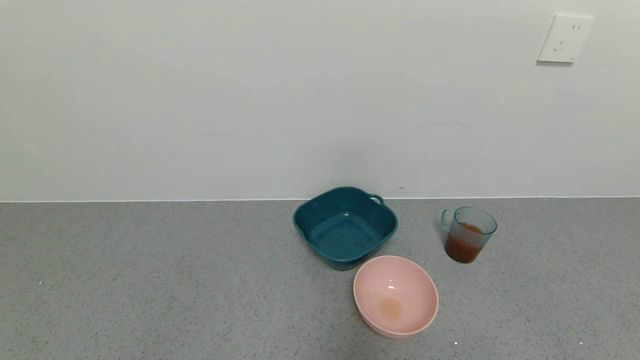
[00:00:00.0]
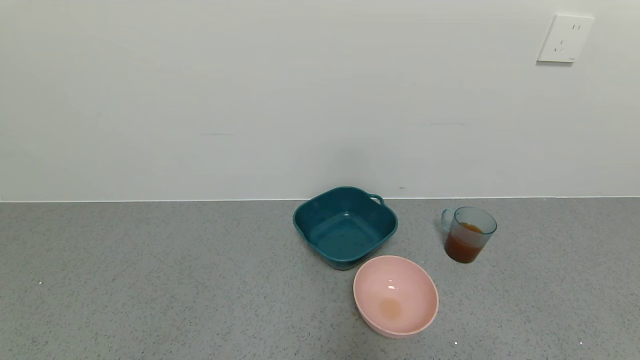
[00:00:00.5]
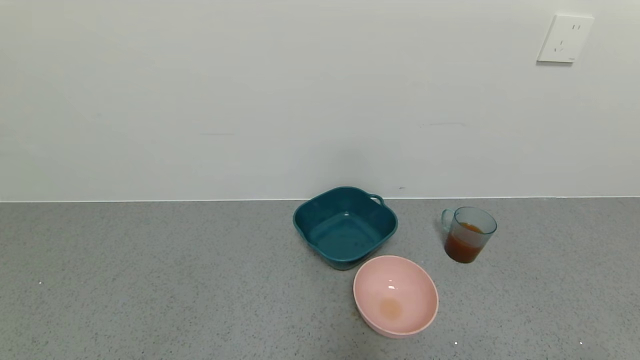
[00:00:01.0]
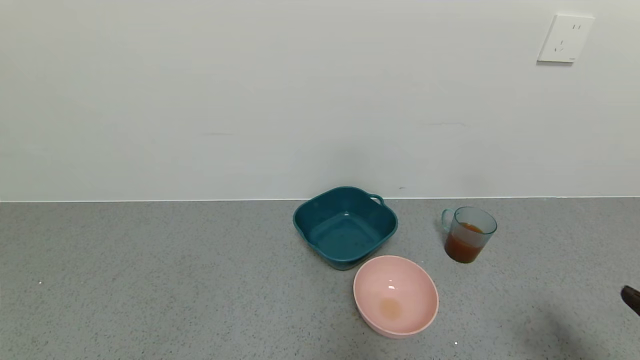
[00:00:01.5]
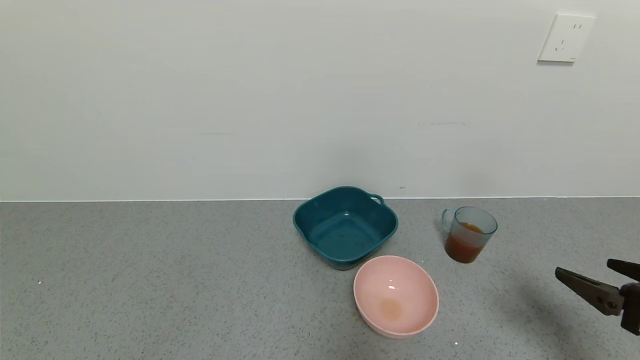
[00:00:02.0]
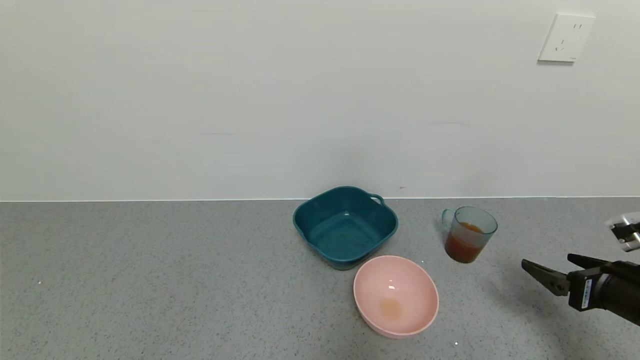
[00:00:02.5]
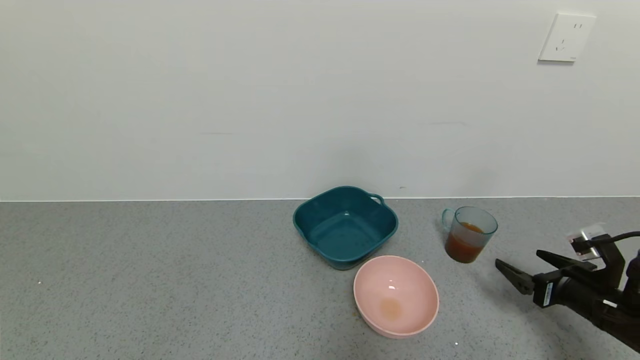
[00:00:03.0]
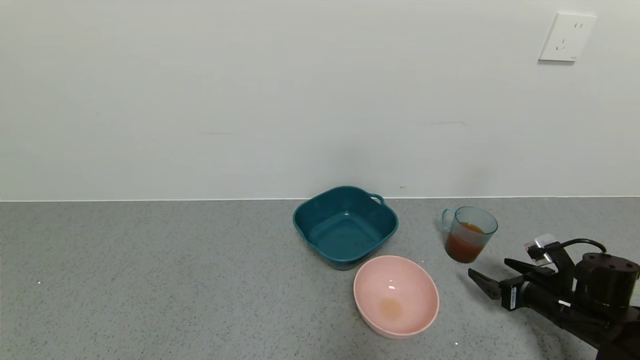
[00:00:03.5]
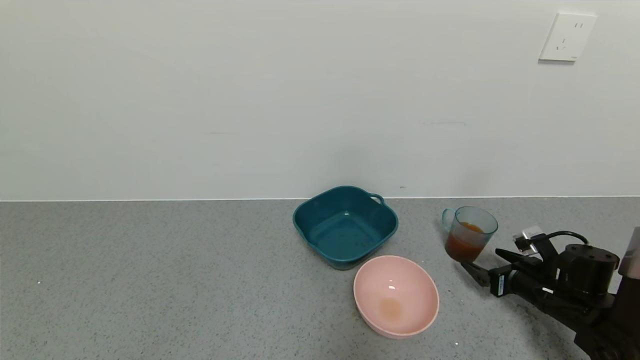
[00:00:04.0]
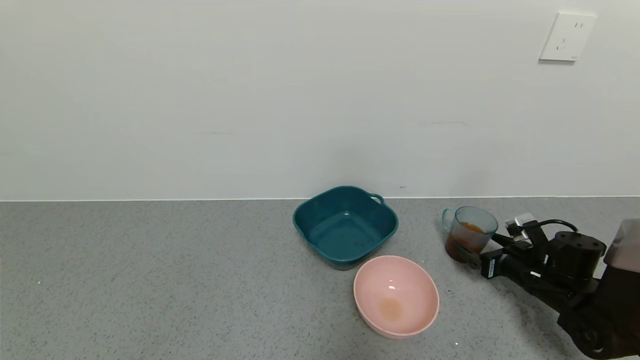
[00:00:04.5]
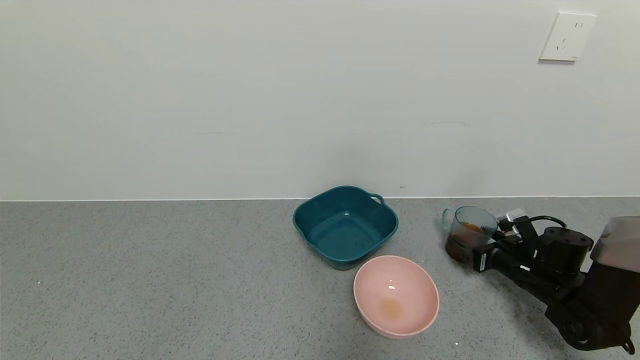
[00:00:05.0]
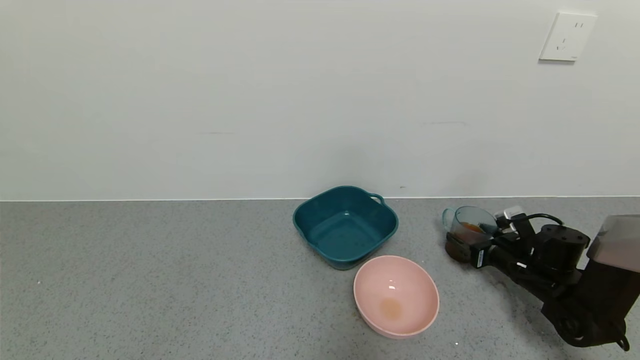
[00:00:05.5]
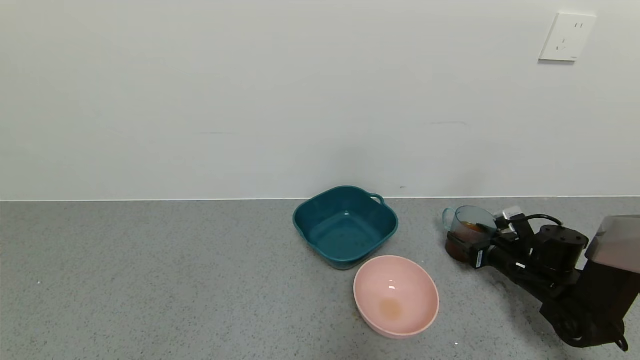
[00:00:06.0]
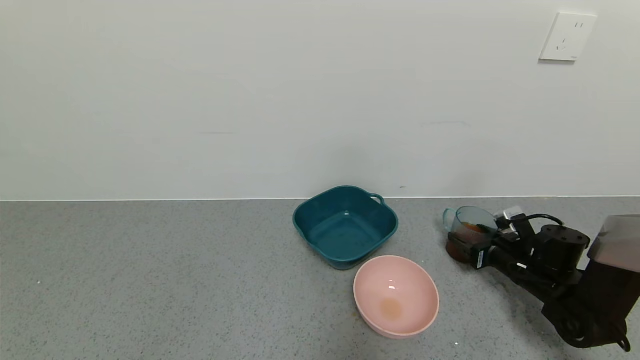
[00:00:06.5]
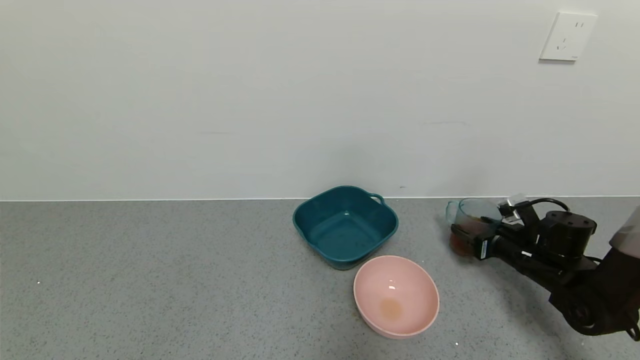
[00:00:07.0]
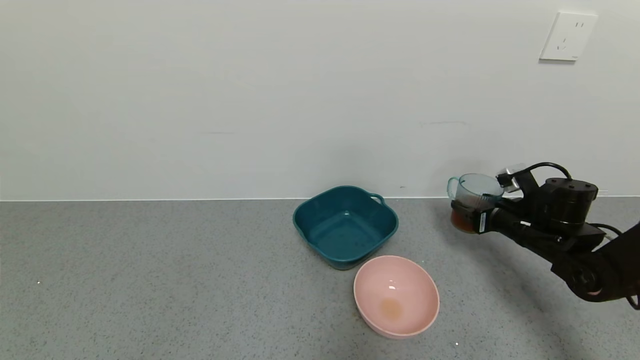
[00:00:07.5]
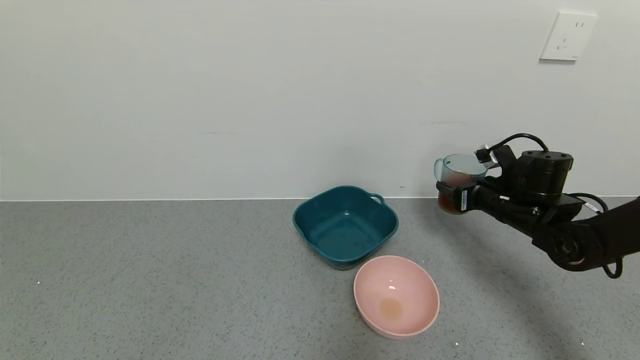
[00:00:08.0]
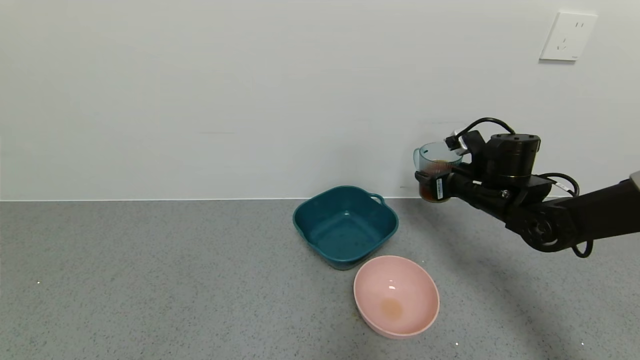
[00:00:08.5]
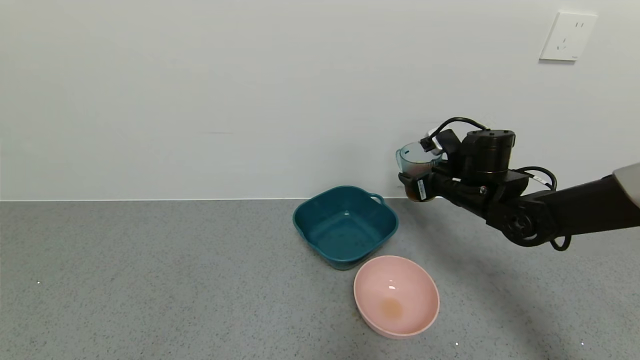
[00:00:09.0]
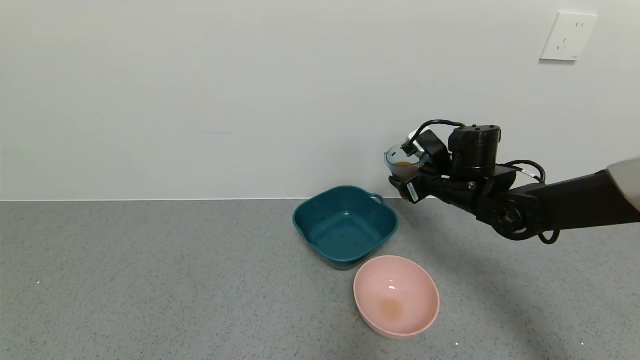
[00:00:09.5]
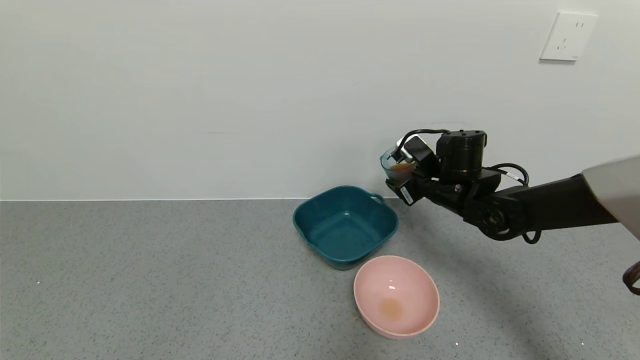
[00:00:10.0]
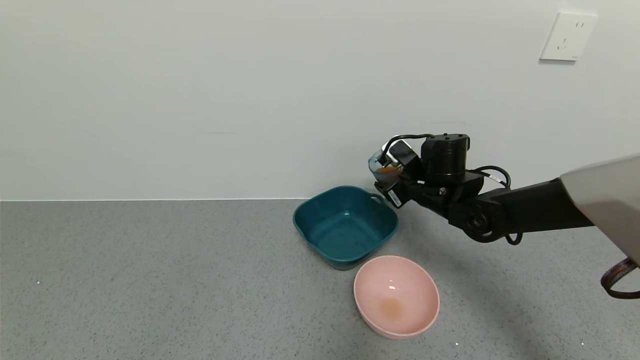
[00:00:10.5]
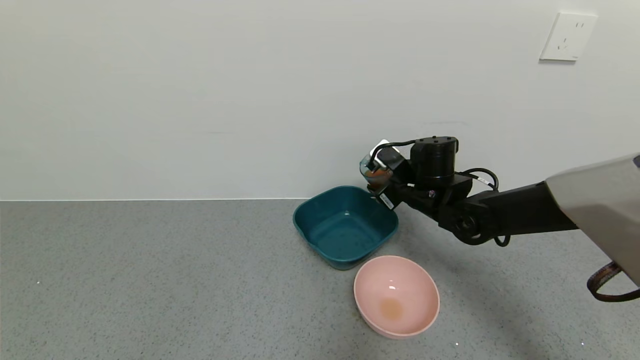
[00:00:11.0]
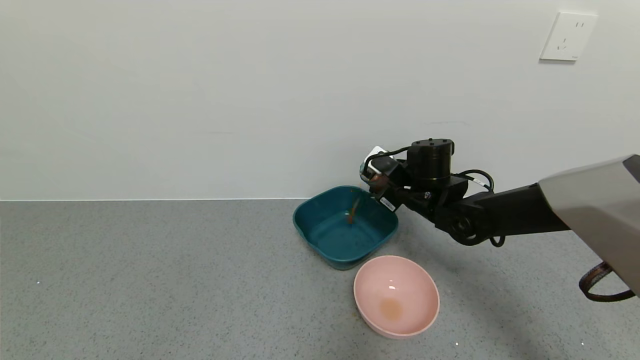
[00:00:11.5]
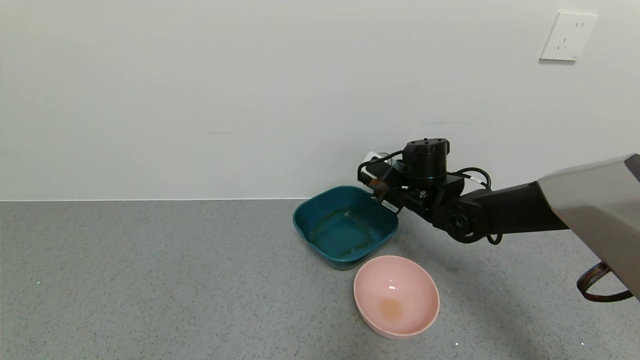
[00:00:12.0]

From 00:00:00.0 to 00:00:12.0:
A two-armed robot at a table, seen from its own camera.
Task of the whole recording: use a gripper to pick up the cup and pour the liquid into a bowl or tray.
Step, from 00:00:00.0 to 00:00:06.0: Pick up blue cup filled with tea with right gripper.
From 00:00:00.0 to 00:00:02.0: The right gripper heads forward and upward, covering about 20 cm.
From 00:00:02.0 to 00:00:04.0: The right gripper travels forward and downward by roughly 20 cm.
From 00:00:04.0 to 00:00:06.0: The right gripper moves some 5 cm, and closes its fingers.
From 00:00:06.0 to 00:00:08.0: The right gripper travels upward and to the left by approximately 15 cm.
From 00:00:08.0 to 00:00:10.0: The right gripper goes approximately 10 cm to the left.

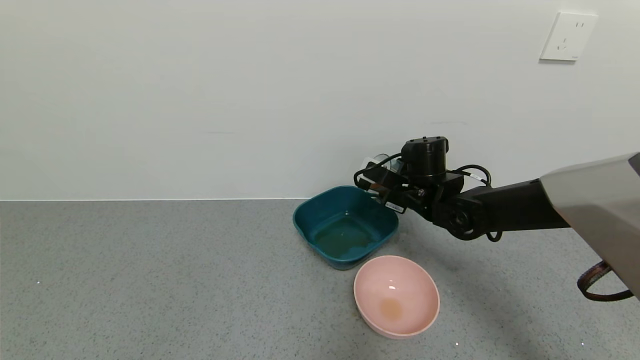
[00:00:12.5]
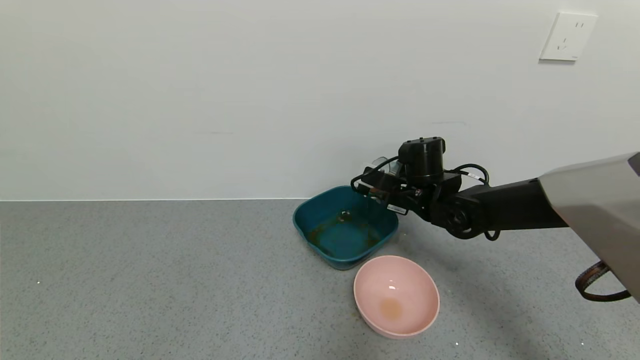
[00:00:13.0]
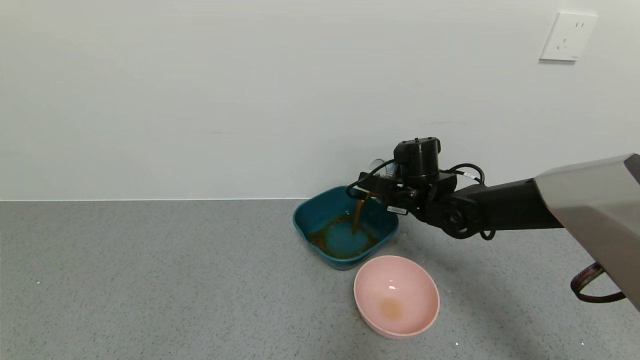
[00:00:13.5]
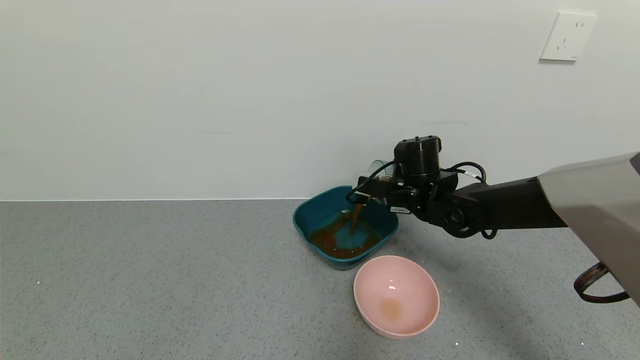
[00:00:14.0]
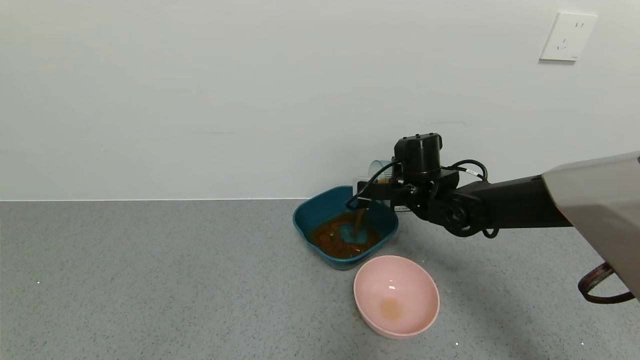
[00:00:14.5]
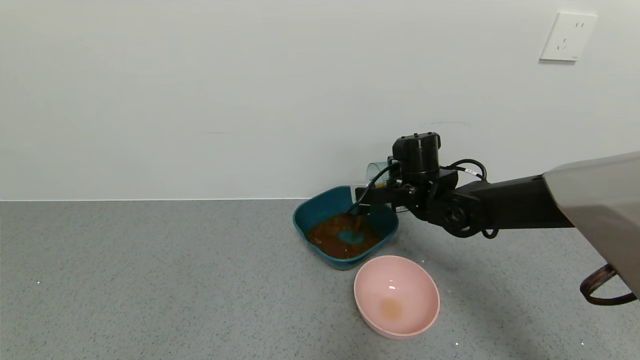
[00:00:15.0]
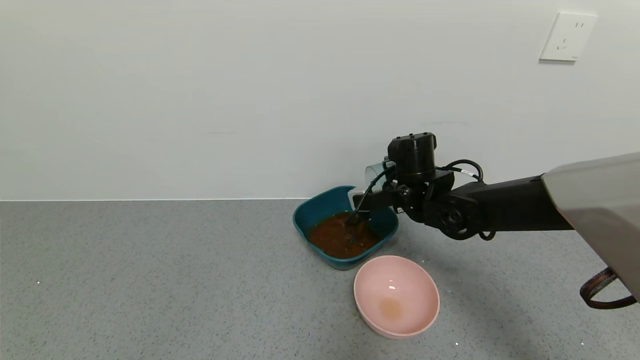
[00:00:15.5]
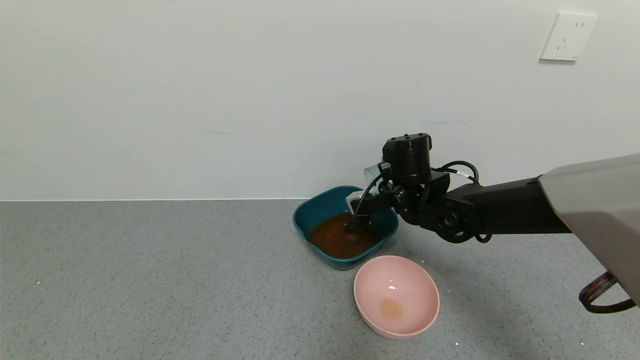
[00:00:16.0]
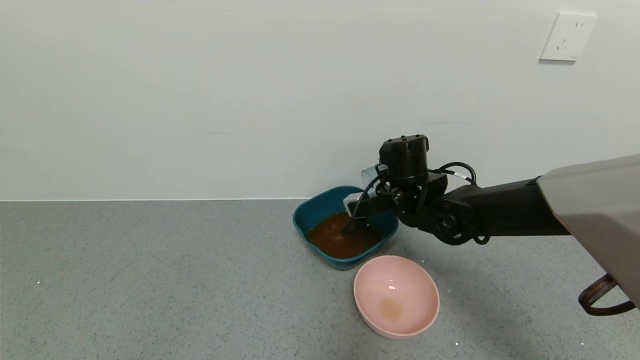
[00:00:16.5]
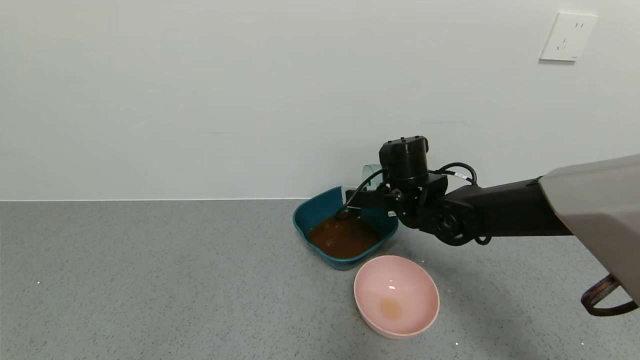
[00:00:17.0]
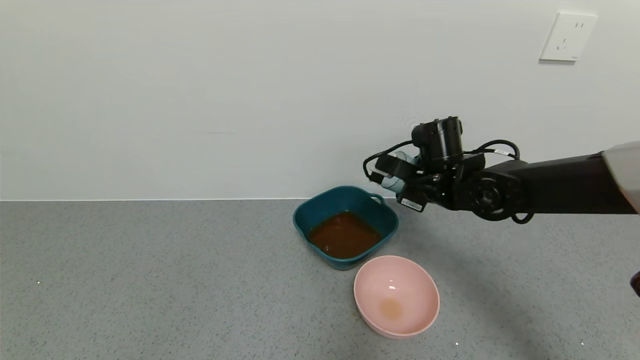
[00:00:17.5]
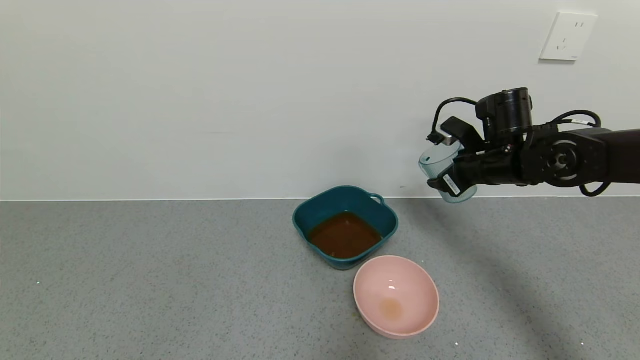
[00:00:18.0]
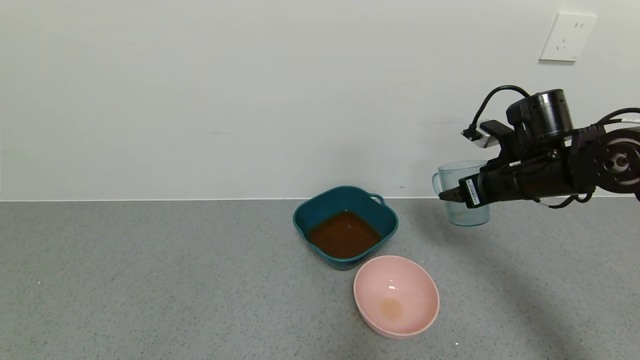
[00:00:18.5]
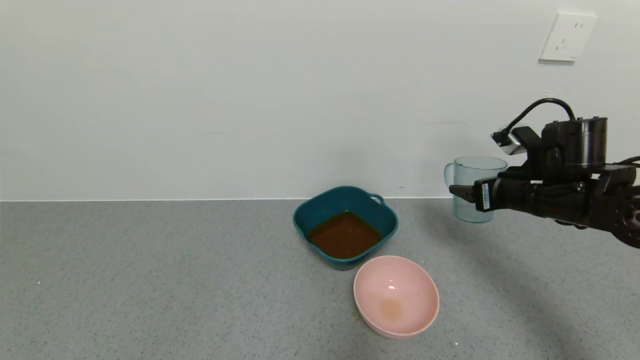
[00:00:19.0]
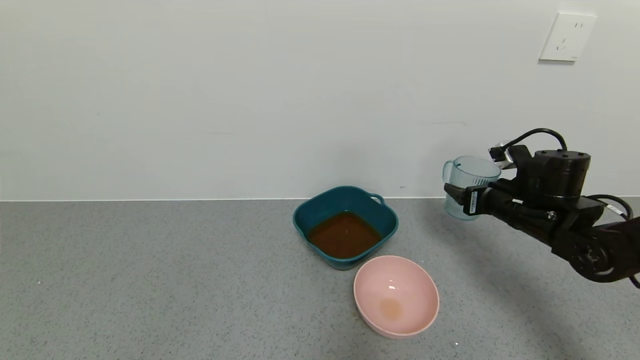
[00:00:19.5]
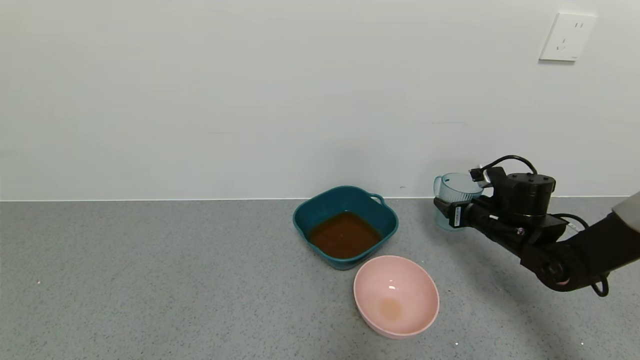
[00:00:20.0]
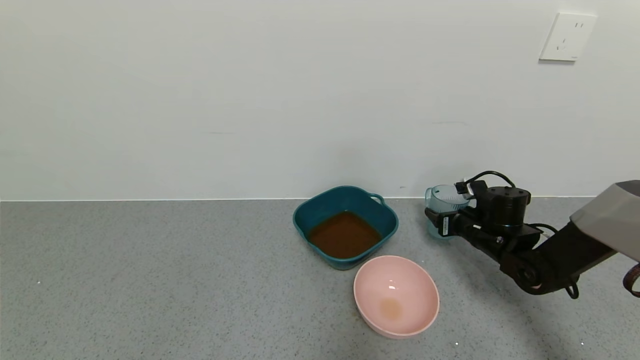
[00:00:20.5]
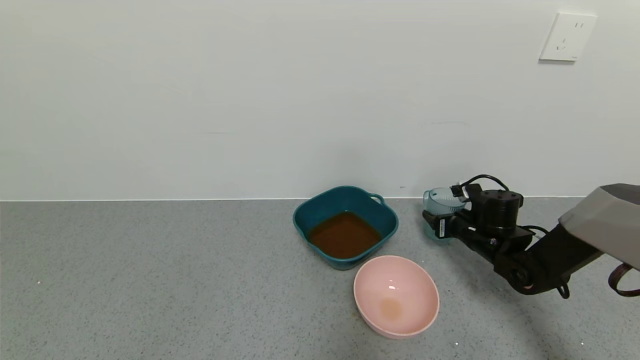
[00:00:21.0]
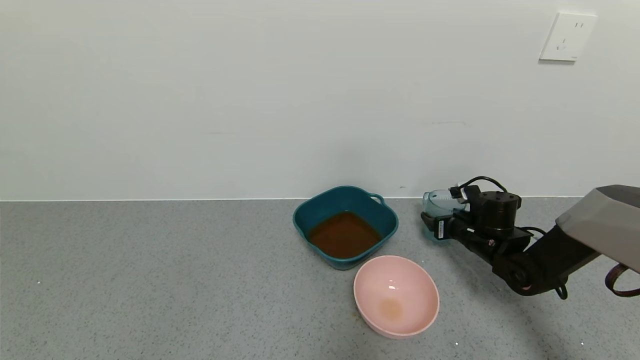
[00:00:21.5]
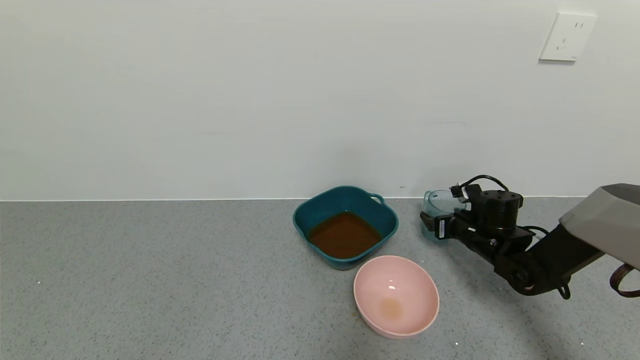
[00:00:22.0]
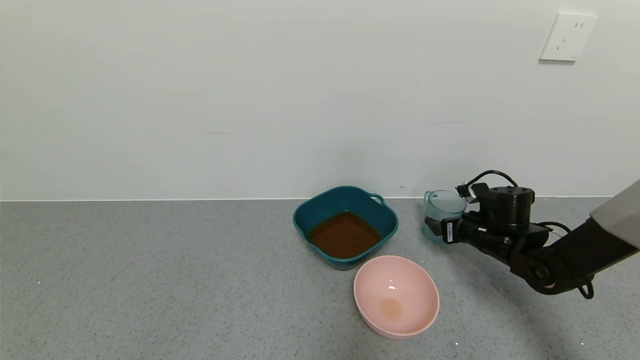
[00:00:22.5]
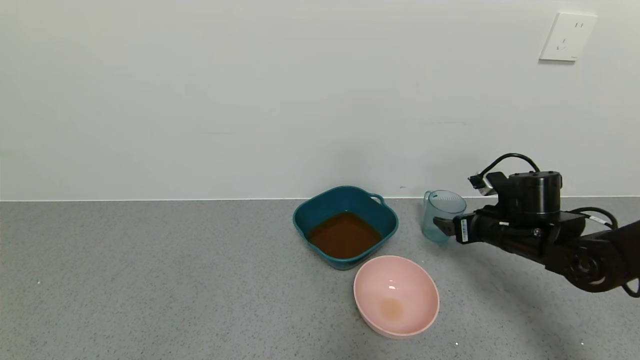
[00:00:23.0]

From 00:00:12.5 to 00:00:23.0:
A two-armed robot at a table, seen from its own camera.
Task of the whole recording: use a gripper to pick up the cup and pour the liquid into a bowl or tray.
Step, from 00:00:12.5 to 00:00:17.0: Pour the tea into the blue basin with right gripper.
Step, from 00:00:17.5 to 00:00:21.5: Place blue cup with tea on the table with right gripper.
From 00:00:16.5 to 00:00:19.0: The right gripper goes some 20 cm to the right.
From 00:00:19.0 to 00:00:21.0: The right gripper shifts about 15 cm downward and forward.
From 00:00:21.0 to 00:00:23.0: The right gripper goes approximately 10 cm upward and backward, and opens.
